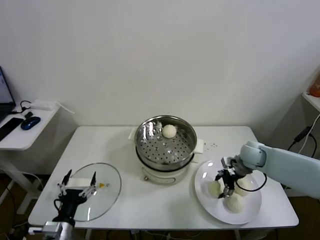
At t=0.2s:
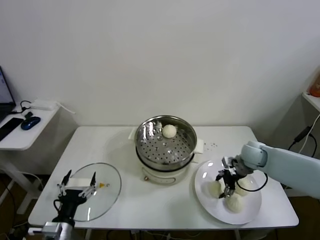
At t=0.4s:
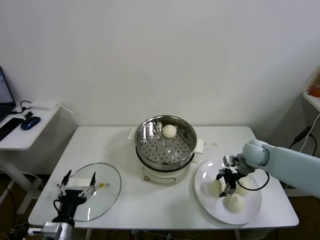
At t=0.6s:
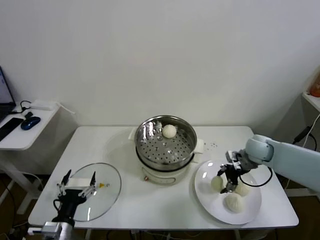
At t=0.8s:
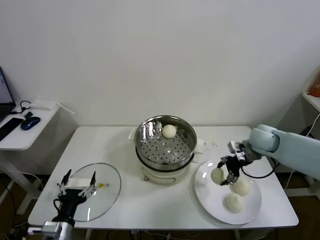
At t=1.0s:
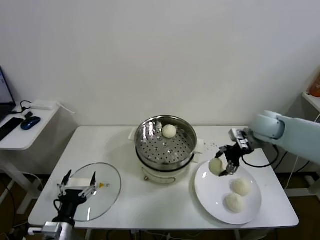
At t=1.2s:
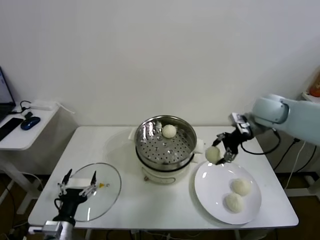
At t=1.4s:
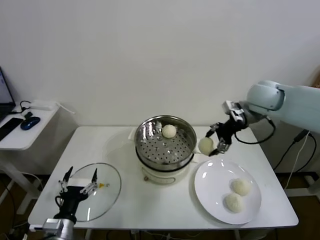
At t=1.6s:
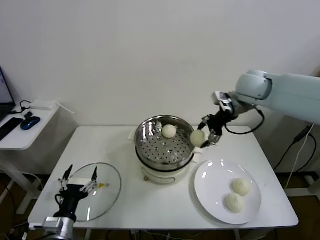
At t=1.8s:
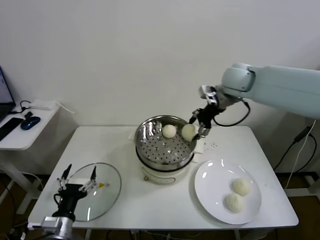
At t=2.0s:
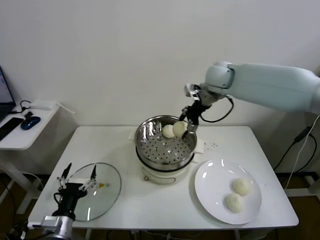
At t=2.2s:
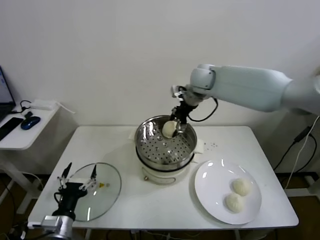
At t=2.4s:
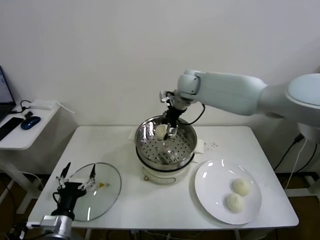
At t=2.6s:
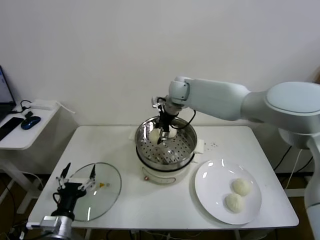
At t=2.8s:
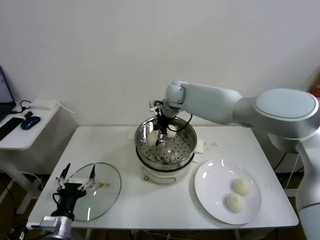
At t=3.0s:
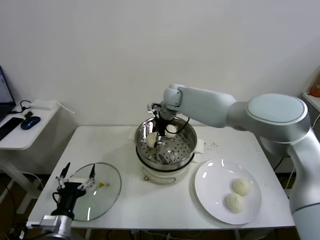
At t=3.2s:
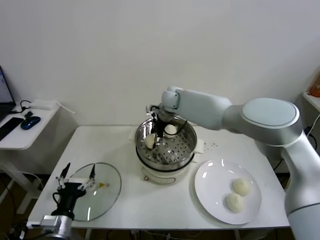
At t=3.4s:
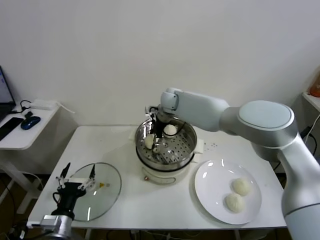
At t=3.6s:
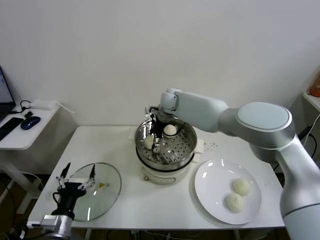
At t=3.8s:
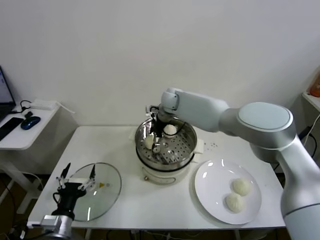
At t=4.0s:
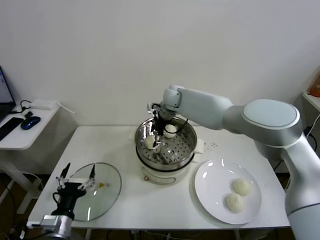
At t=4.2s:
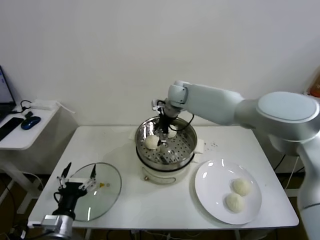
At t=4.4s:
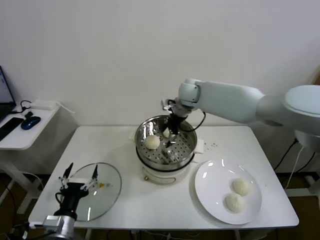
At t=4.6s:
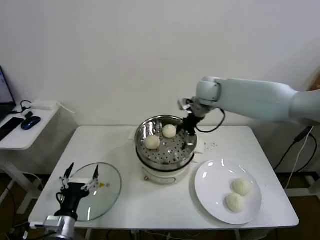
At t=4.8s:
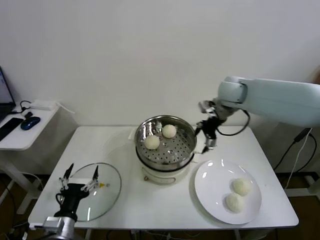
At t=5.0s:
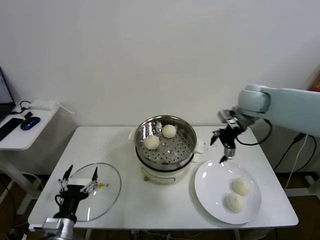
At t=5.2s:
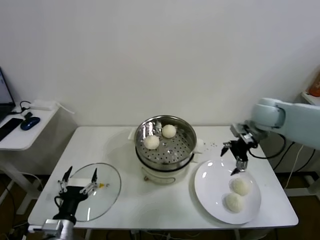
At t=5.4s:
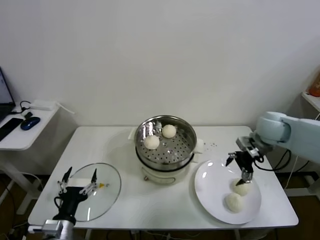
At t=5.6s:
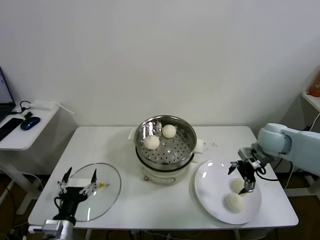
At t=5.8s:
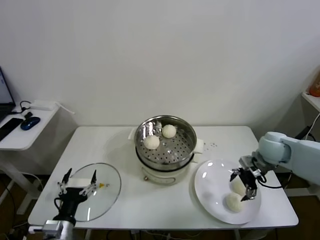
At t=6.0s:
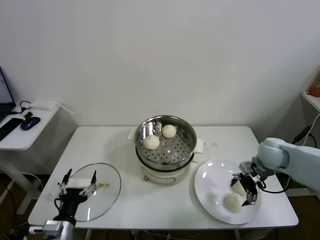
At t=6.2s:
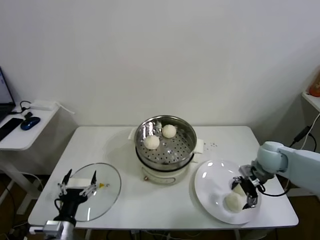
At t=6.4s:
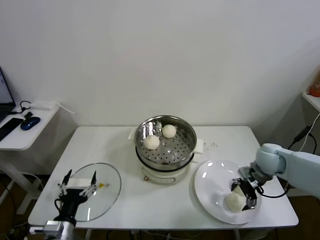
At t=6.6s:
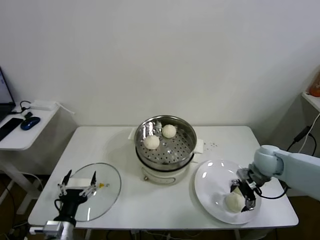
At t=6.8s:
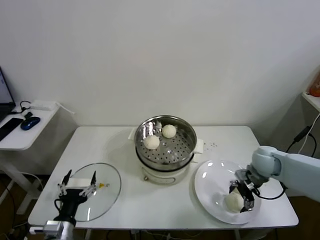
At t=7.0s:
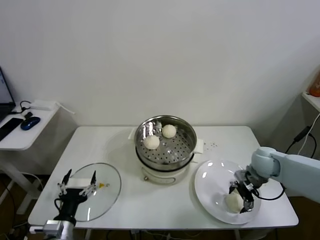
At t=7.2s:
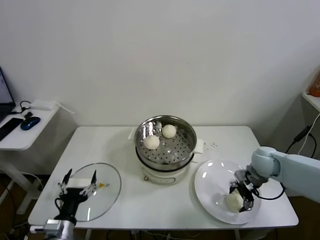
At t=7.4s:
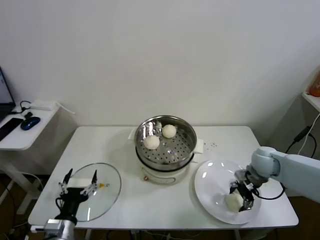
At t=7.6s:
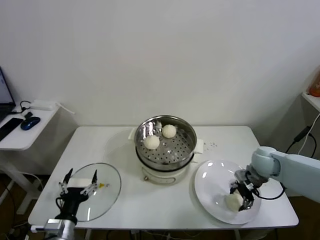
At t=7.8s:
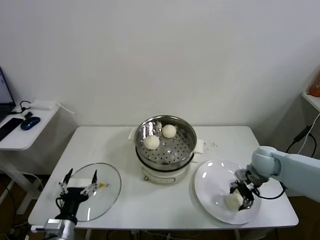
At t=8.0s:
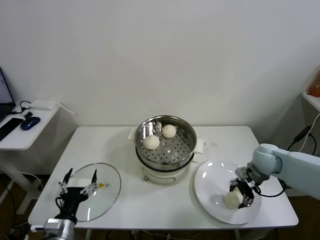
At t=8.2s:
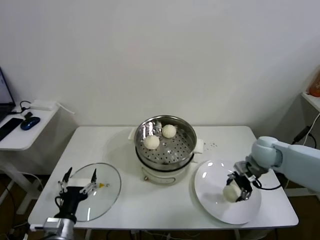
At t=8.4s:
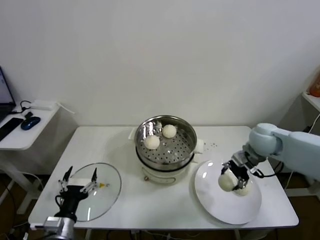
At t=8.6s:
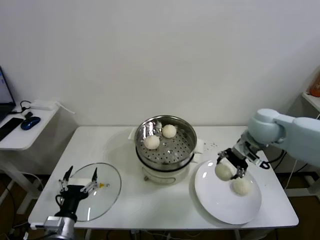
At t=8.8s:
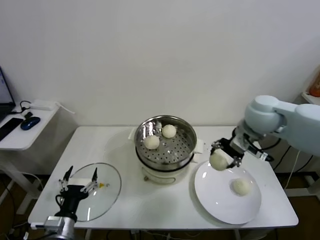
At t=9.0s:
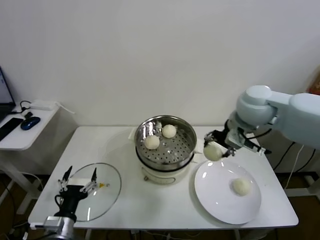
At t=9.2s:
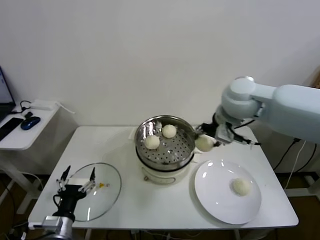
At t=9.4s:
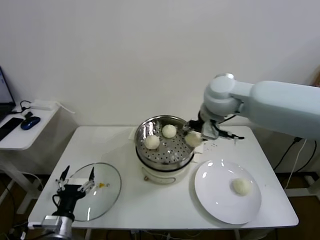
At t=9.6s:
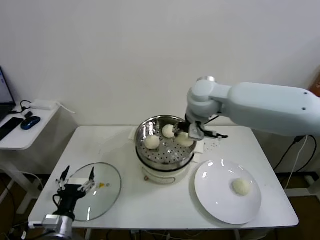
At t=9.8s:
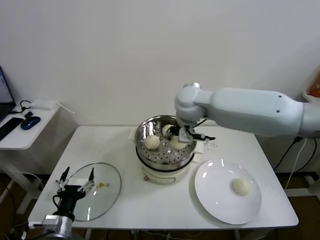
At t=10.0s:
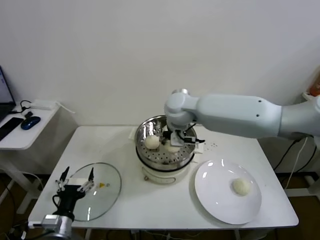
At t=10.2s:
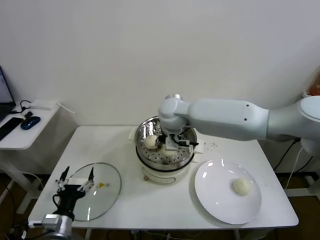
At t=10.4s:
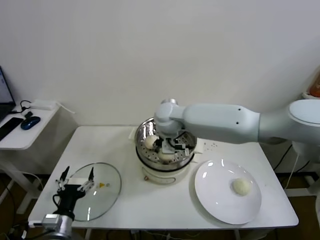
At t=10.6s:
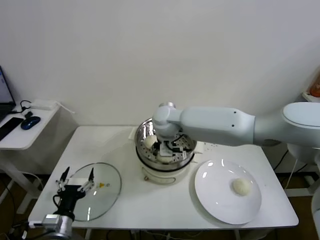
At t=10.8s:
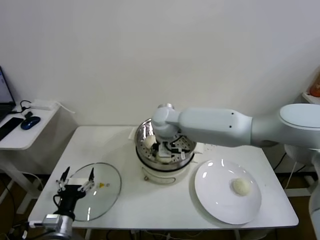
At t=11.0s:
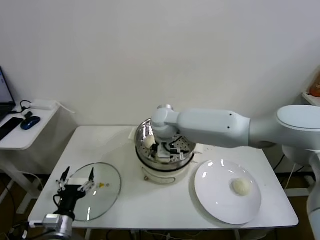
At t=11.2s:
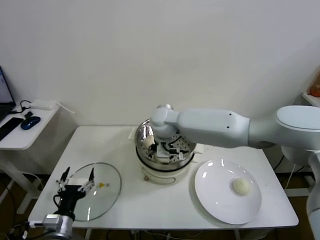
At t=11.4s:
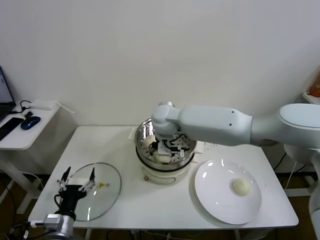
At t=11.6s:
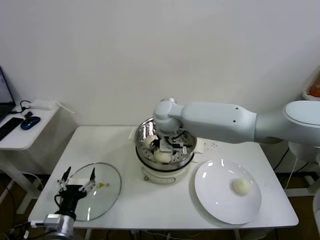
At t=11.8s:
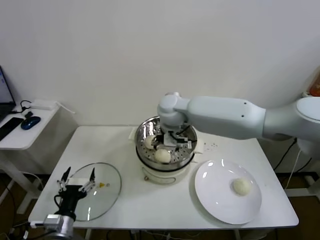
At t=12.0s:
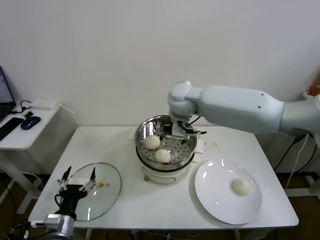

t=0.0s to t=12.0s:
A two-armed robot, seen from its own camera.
Task of the whole recording: take steamed baozi put them in steamer.
Step, t=0.2s to t=4.0s: Place the baozi on the steamer with right gripper.
Step, t=4.2s to t=7.4s: Grasp the baozi in the plate with right gripper.
Step, t=7.6s to t=11.4s: Place the baozi on the steamer with right gripper.
t=0.0s to t=1.6s: The right gripper moves upward, roughly 25 cm.
t=1.6s to t=3.0s: The right gripper goes some 25 cm to the left, forward and downward.
t=3.0s to t=4.4s: The right gripper travels to the right by roughly 5 cm, and opens.
t=4.4s to t=6.0s: The right gripper moves to the right, backward and downward, about 35 cm.
t=6.0s to t=7.6s: The right gripper ends up approximately 5 cm from where it was, and closes.
t=7.6s to t=9.0s: The right gripper travels upward and to the left by about 25 cm.
t=9.0s to t=10.4s: The right gripper is displaced to the left by about 20 cm.
t=10.4s to t=12.0s: The right gripper ends up some 5 cm from where it was, and opens.

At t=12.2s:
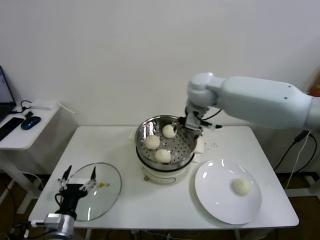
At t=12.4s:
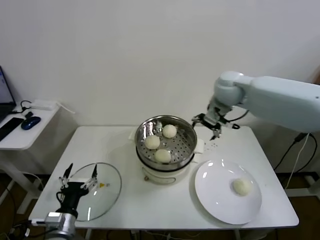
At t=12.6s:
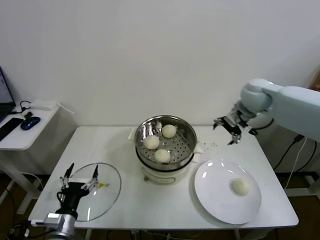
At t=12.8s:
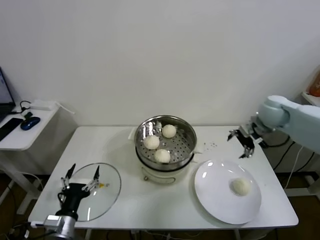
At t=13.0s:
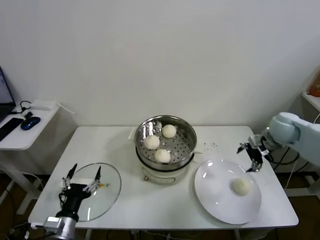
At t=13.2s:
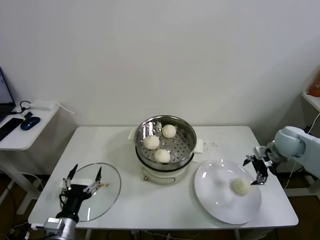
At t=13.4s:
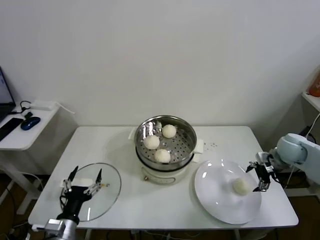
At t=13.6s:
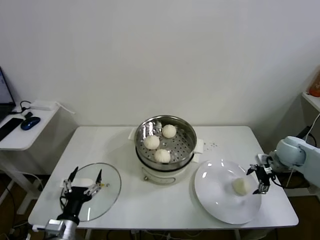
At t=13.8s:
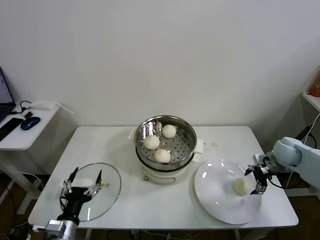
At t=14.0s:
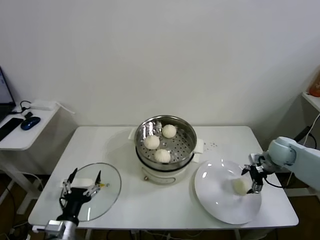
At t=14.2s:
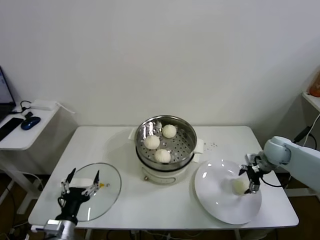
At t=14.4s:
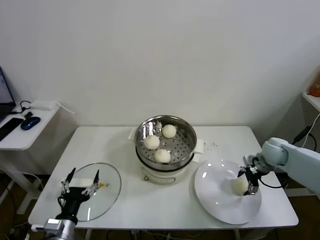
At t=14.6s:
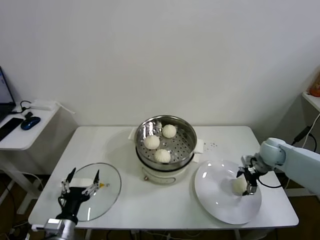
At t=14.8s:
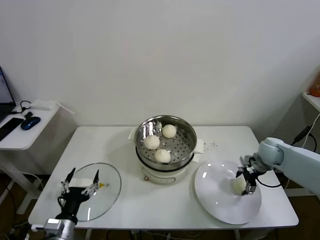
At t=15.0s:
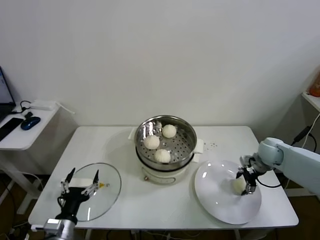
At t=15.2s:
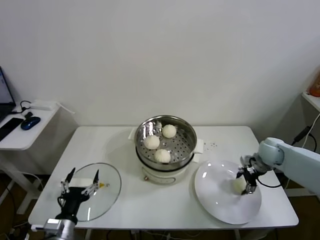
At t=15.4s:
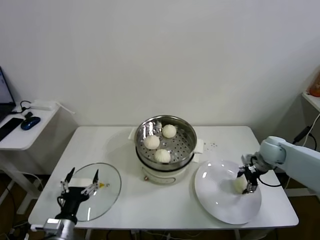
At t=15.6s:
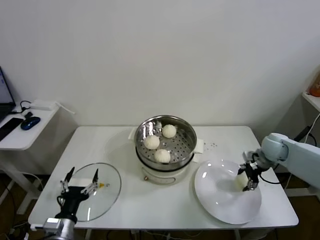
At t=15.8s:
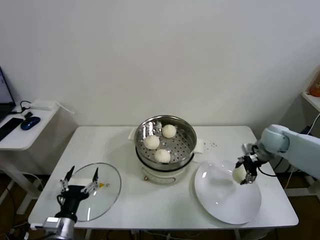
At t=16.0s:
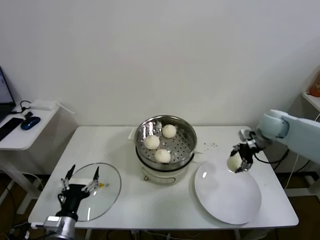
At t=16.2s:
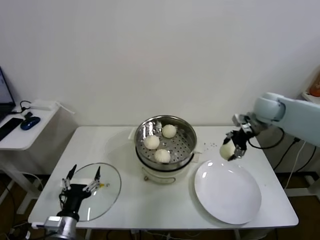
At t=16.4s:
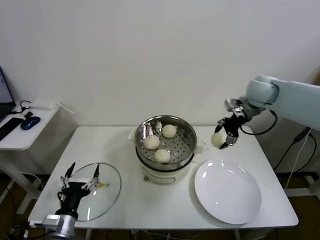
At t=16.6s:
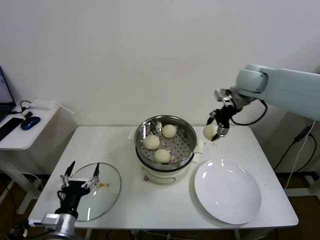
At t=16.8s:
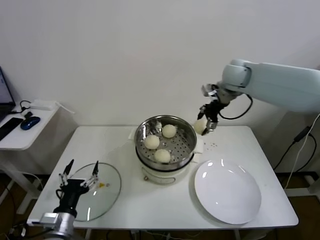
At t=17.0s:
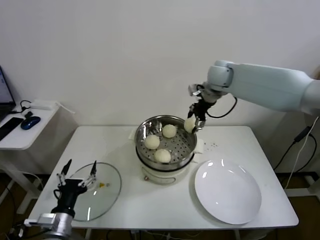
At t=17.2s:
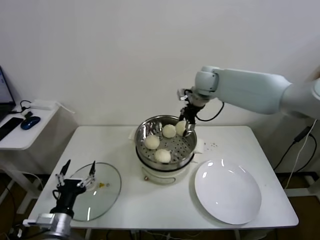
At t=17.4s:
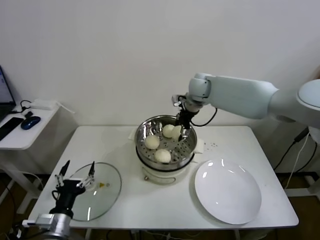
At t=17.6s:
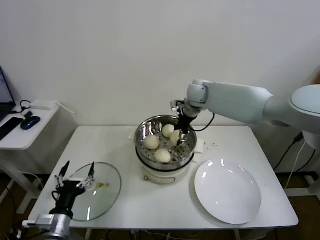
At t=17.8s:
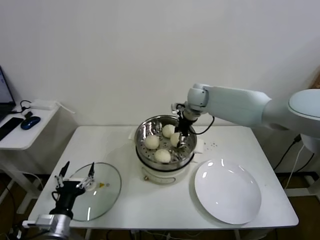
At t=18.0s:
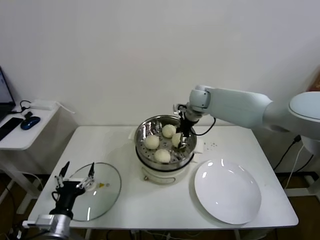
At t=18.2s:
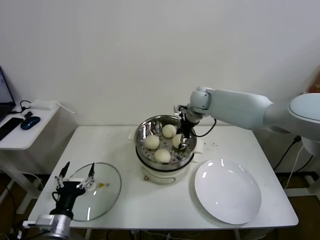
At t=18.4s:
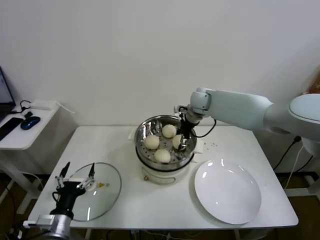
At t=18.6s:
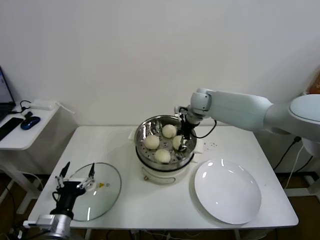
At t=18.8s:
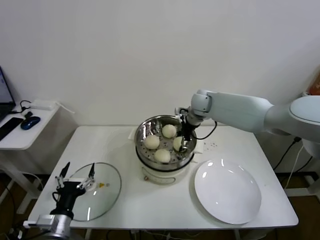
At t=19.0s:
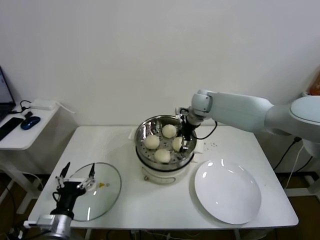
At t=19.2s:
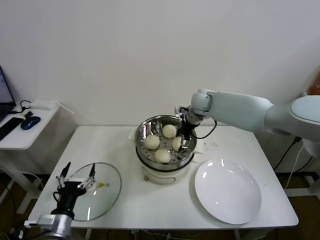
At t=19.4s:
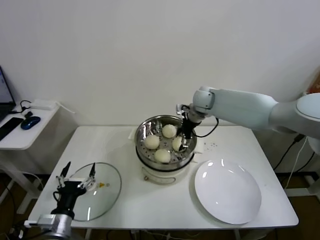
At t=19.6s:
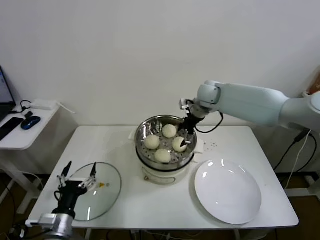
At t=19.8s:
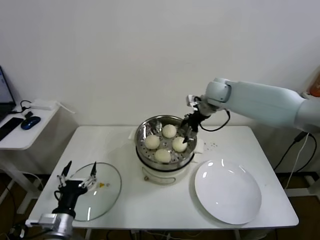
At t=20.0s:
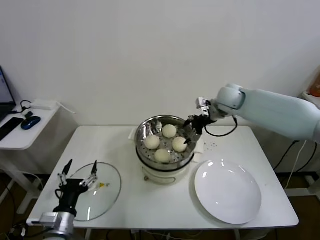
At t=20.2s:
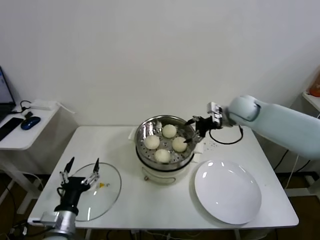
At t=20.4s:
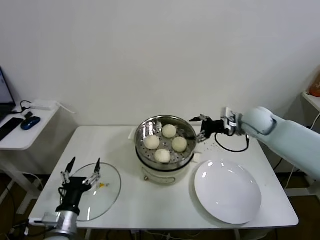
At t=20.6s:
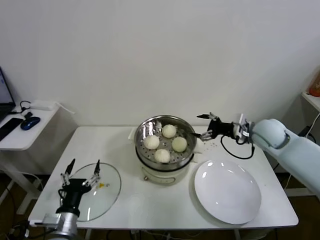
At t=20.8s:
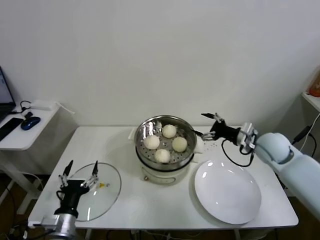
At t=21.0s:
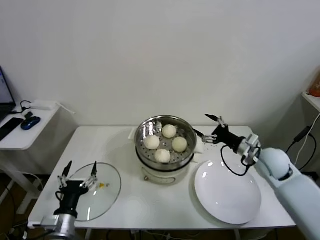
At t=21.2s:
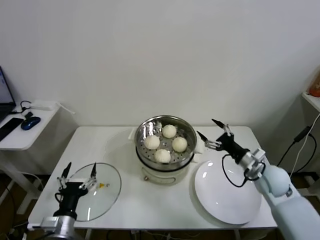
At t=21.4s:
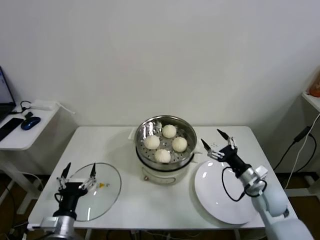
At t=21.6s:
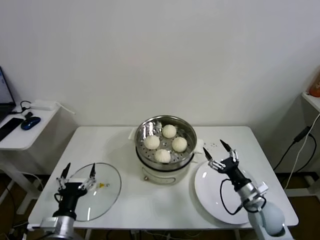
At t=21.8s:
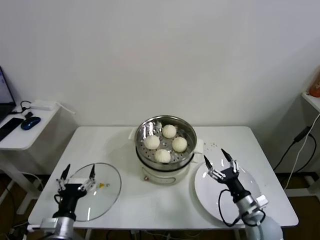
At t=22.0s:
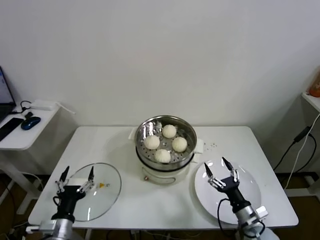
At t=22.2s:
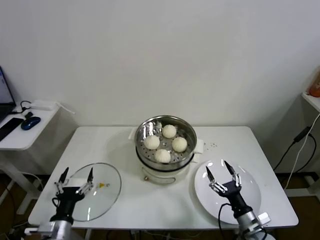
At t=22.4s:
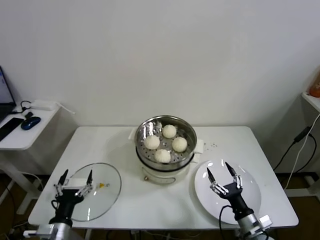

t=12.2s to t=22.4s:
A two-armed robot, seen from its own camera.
Task of the whole recording: take steamed baozi put them in steamer.
Step, t=12.2s to t=15.2s: Grasp the baozi in the plate with right gripper.
Step, t=15.4s to t=19.4s: Place the baozi on the steamer with right gripper.
t=12.2s to t=13.6s: The right gripper travels to the right and downward by roughly 40 cm.
t=13.6s to t=15.2s: The right gripper changes place by roughly 5 cm, and closes.
t=15.2s to t=16.6s: The right gripper is displaced upward and to the left by roughly 30 cm.
t=16.6s to t=18.0s: The right gripper heads to the left, downward and forward, covering some 20 cm.
t=18.0s to t=19.4s: The right gripper opens.
t=19.4s to t=21.0s: The right gripper goes approximately 30 cm backward, to the right and downward.
t=21.0s to t=22.4s: The right gripper shifts roughly 30 cm backward and downward.
